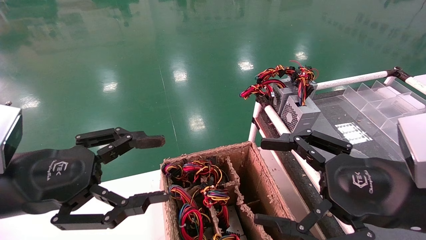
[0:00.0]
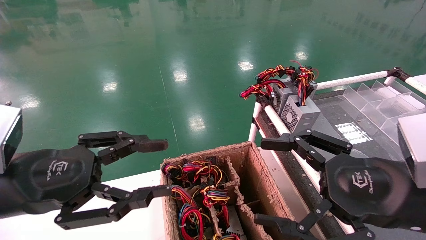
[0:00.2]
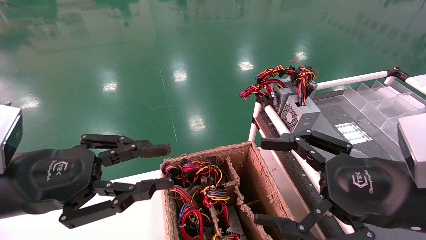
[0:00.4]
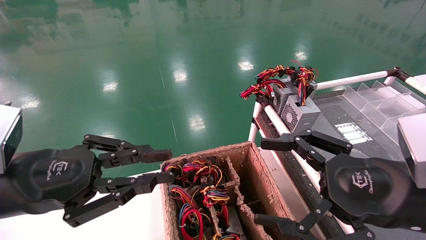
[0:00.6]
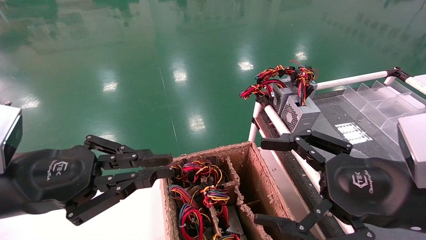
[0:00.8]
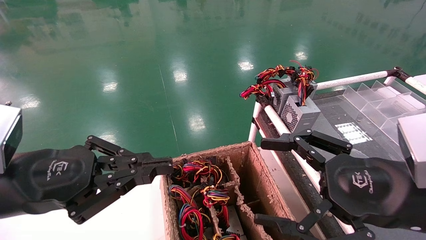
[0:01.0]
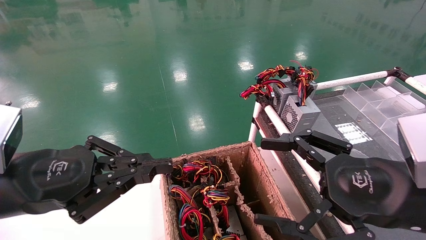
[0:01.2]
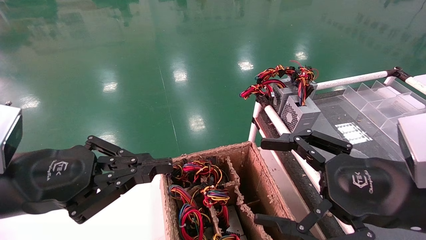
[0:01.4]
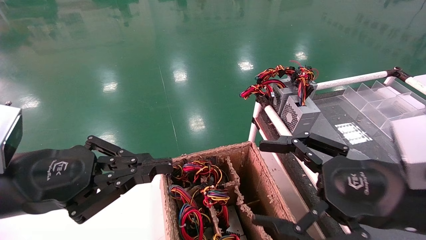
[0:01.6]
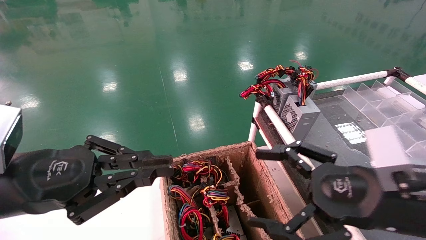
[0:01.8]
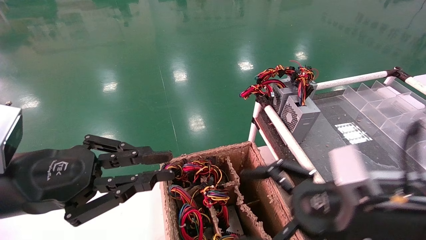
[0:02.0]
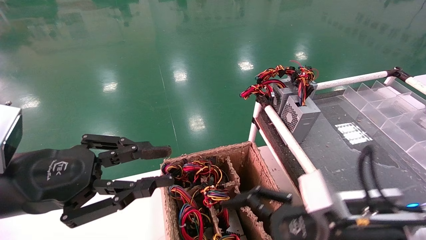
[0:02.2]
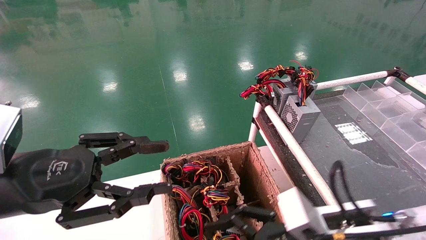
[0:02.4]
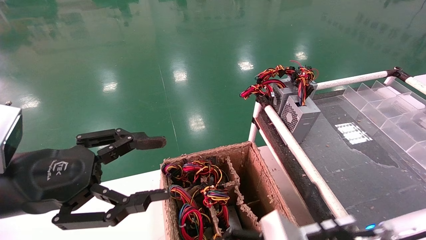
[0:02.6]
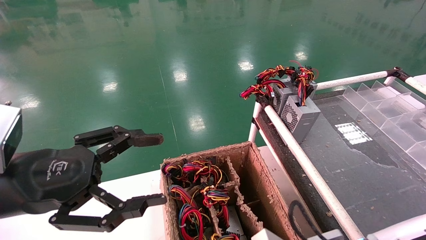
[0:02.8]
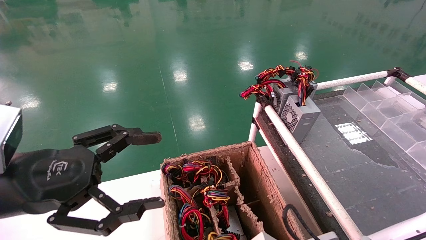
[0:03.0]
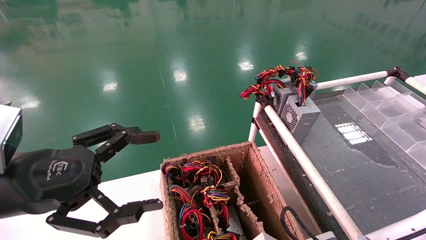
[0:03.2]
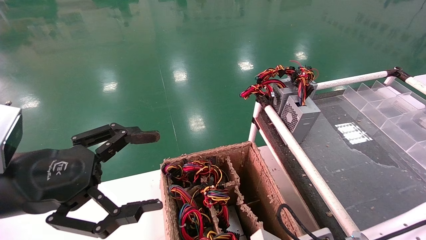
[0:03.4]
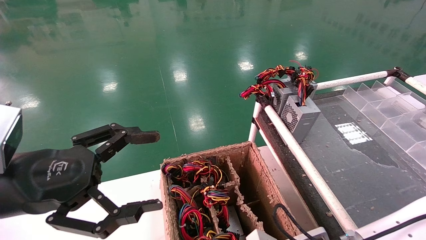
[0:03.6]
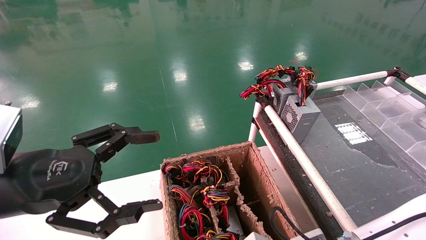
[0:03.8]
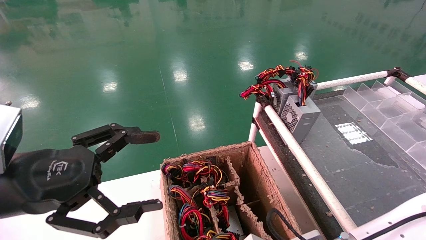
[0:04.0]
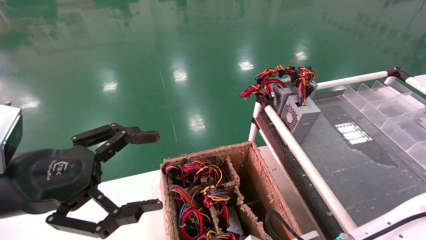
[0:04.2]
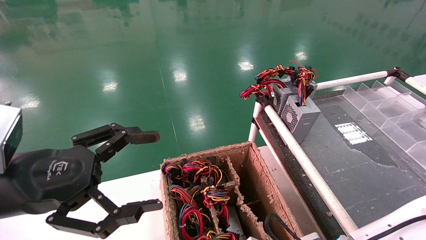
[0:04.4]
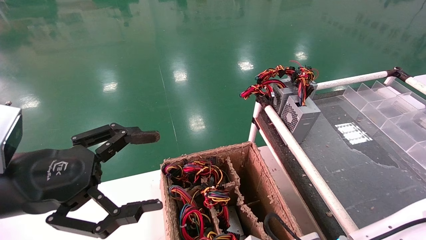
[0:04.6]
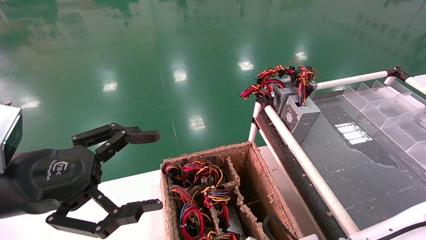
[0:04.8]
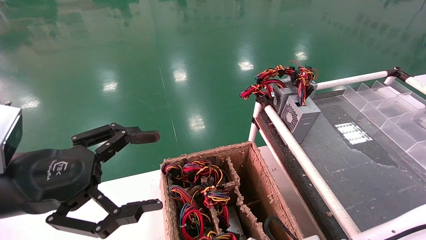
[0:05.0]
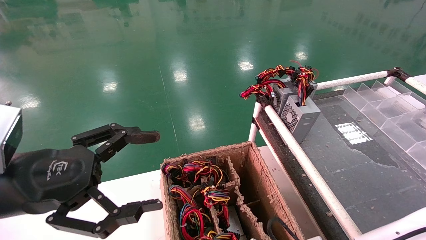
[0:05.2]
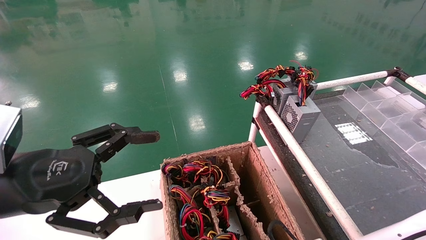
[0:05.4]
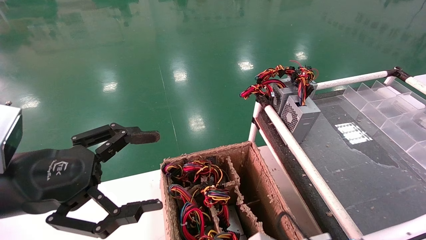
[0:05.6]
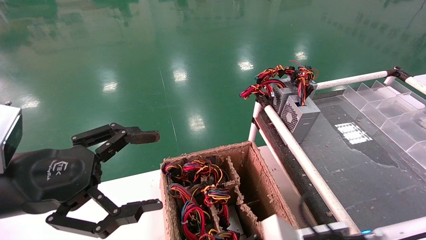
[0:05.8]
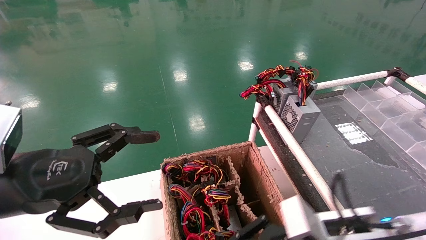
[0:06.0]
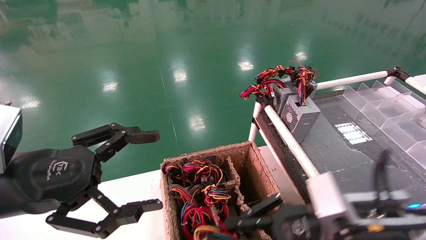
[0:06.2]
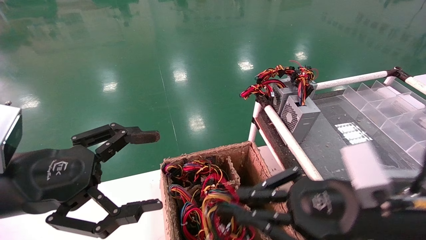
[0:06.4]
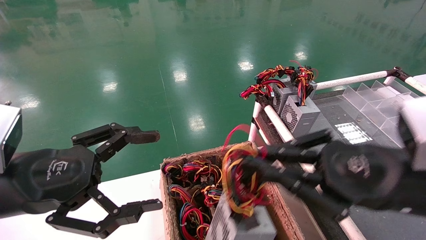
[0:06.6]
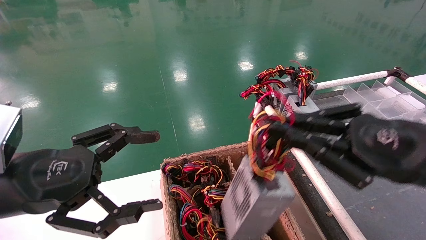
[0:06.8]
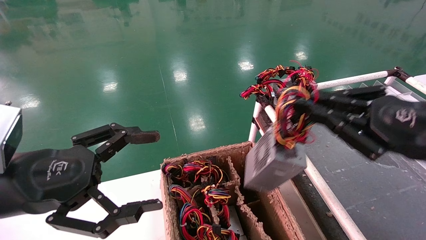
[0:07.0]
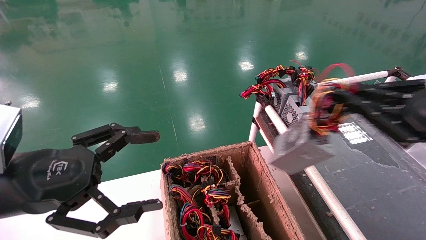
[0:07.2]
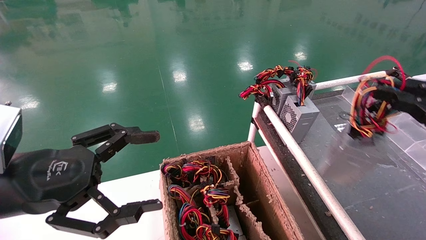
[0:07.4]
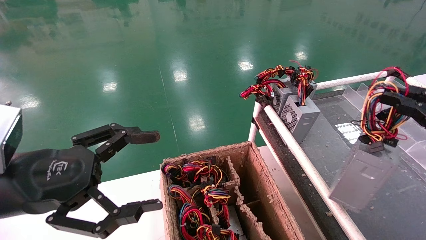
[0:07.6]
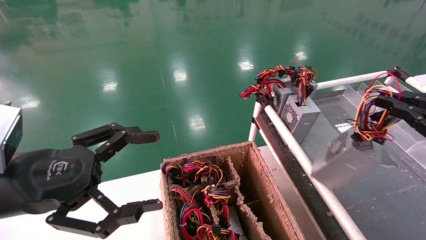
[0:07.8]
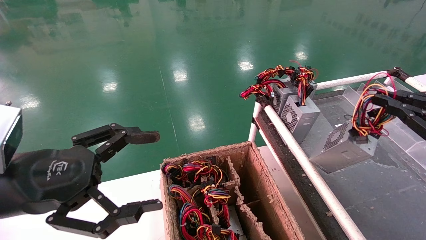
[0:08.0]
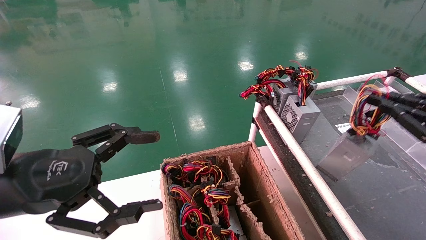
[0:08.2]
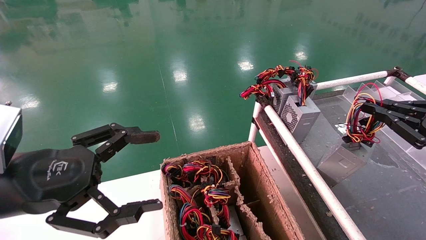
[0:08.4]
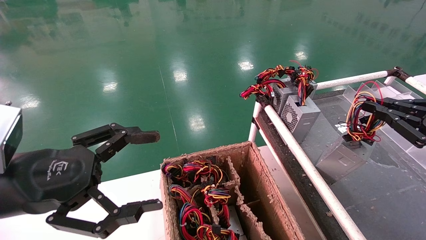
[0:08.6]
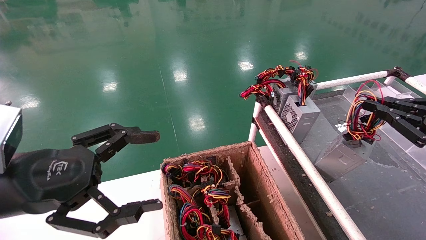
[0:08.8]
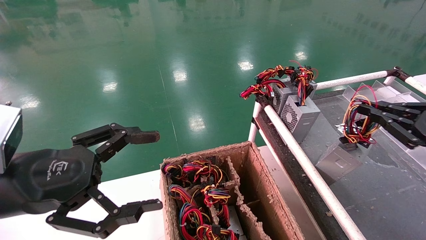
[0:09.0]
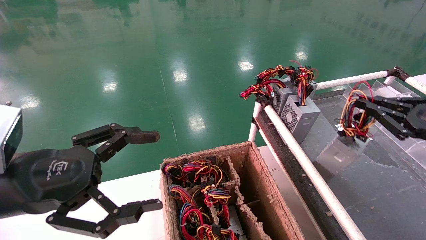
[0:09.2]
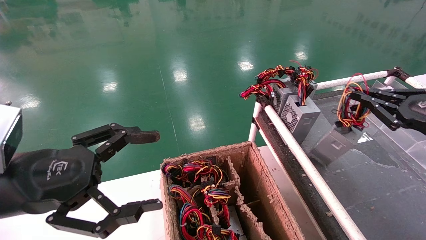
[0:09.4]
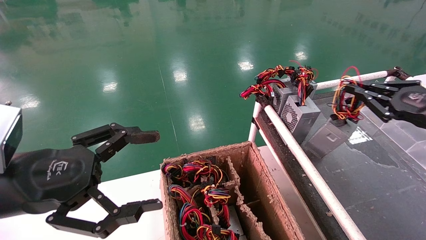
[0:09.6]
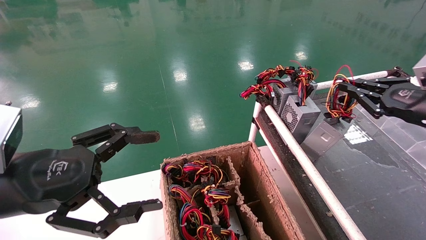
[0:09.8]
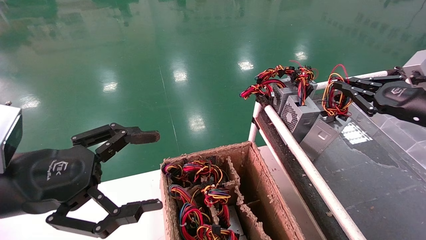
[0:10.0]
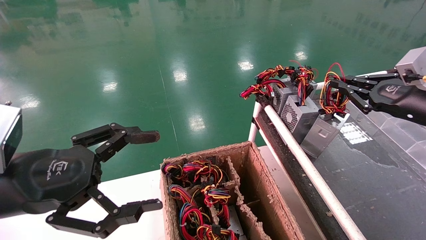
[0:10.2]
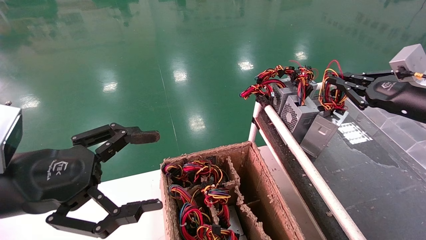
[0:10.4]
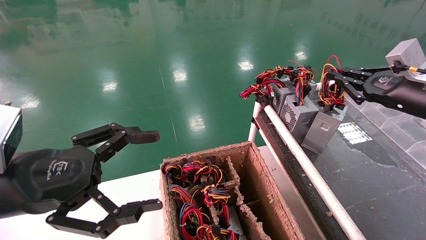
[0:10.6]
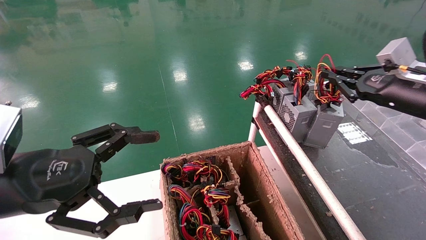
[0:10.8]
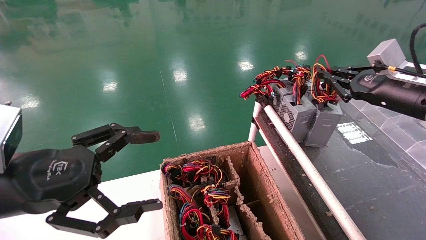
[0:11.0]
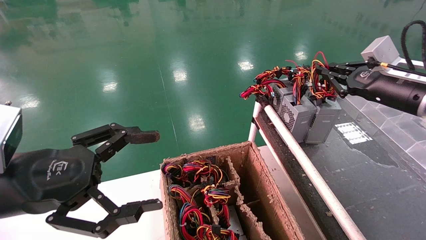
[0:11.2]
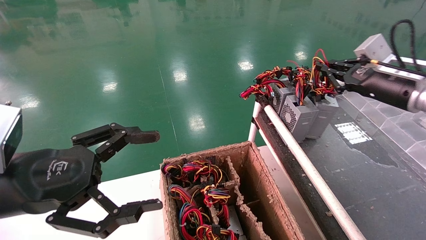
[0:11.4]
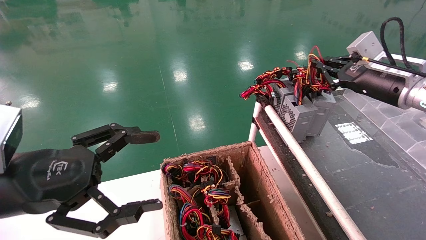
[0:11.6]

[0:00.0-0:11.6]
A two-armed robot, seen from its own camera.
Step, 0:01.0 to 0:05.0: Grab and lift the power supply from the large box.
0:00.0 to 0:01.4: The left gripper closes up.
0:01.4 to 0:02.8: The left gripper opens its fingers, while the right gripper travels downward and to the left by about 15 cm.
0:02.8 to 0:04.4: The right gripper shifts by about 5 cm.
0:04.4 to 0:05.8: The right gripper ends up roughly 5 cm from where it was, and closes its fingers.
0:05.8 to 0:07.2: The right gripper shifts roughly 25 cm to the right and upward.
0:07.2 to 0:08.8: The right gripper moves to the right, roughly 5 cm.
0:08.8 to 0:10.2: The right gripper travels forward by approximately 10 cm.
0:10.2 to 0:11.6: The right gripper goes some 10 cm forward and to the left.

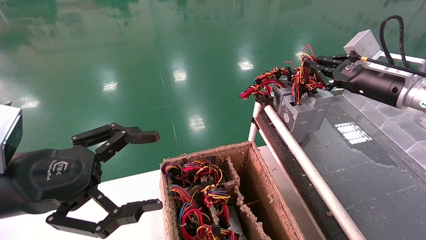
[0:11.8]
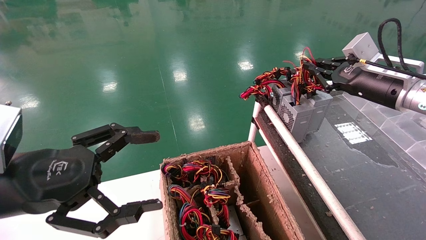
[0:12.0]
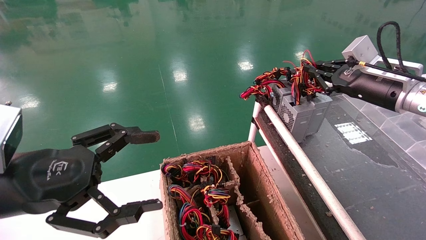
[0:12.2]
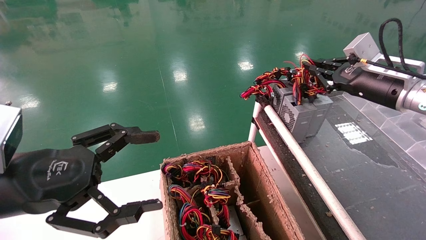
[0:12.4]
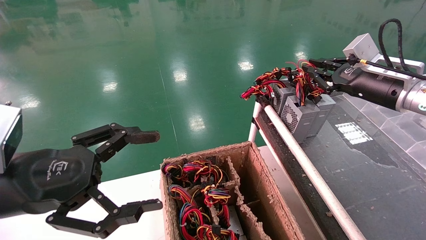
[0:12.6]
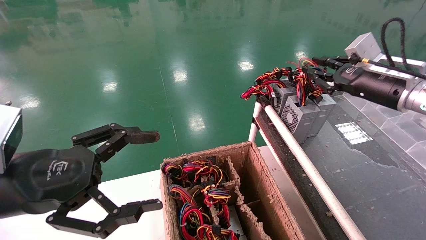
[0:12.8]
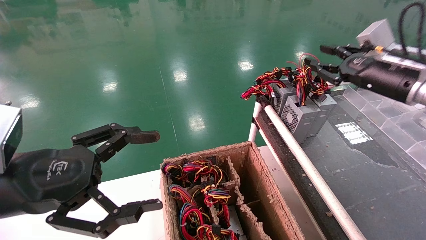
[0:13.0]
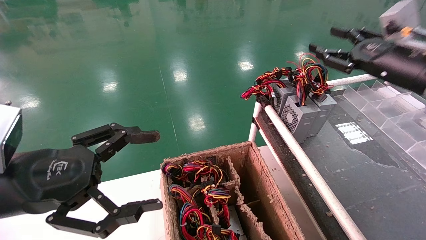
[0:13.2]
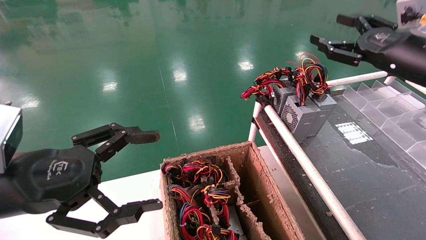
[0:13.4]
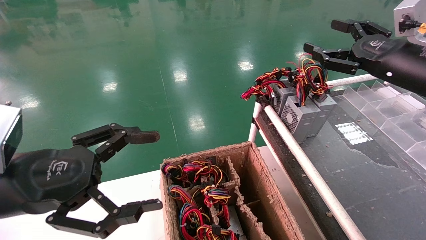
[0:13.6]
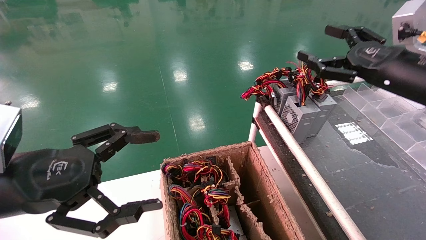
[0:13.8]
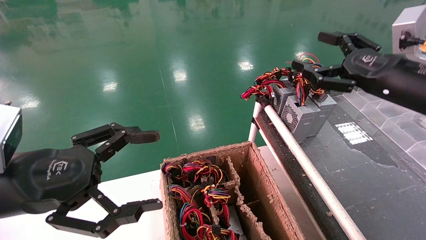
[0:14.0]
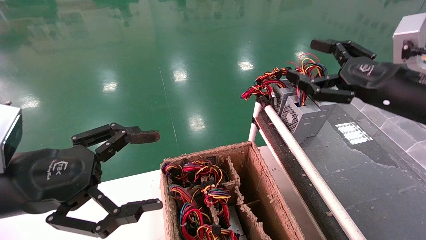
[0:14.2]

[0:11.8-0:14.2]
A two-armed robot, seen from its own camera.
0:11.8 to 0:13.0: The grippers move only a little.
0:13.0 to 0:14.2: The right gripper shifts about 10 cm backward, and opens its fingers.
